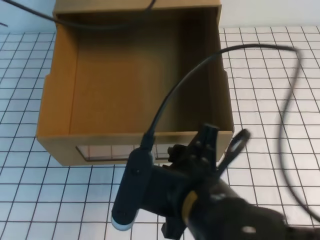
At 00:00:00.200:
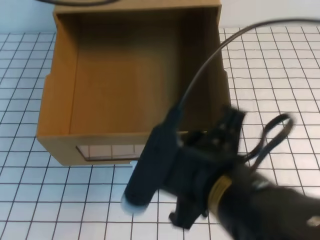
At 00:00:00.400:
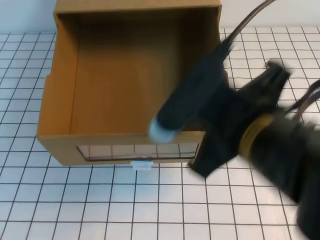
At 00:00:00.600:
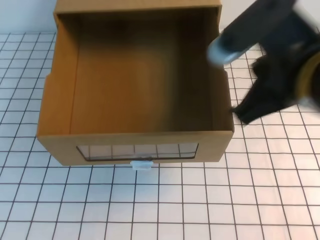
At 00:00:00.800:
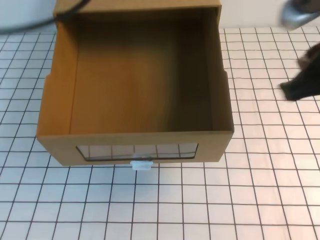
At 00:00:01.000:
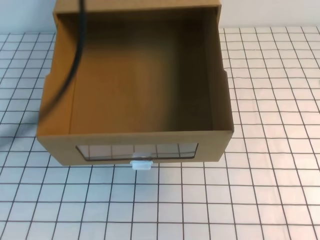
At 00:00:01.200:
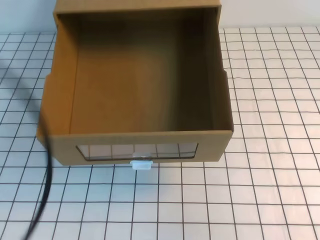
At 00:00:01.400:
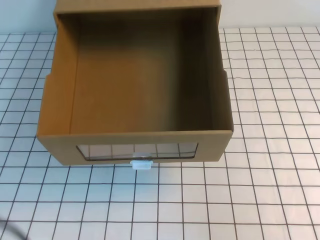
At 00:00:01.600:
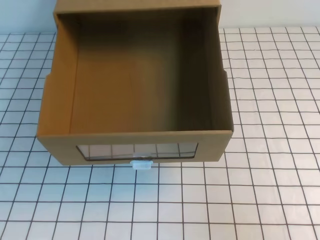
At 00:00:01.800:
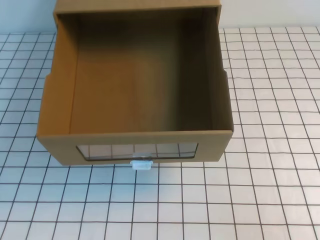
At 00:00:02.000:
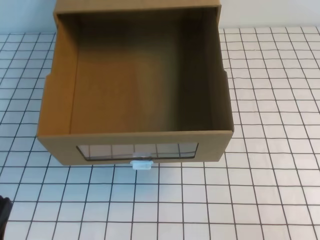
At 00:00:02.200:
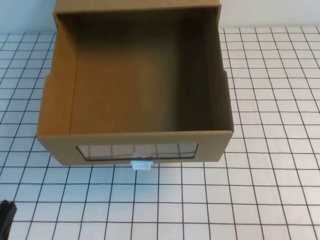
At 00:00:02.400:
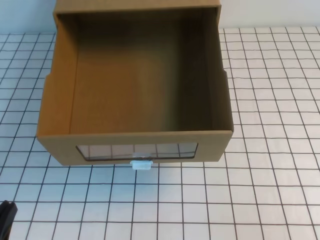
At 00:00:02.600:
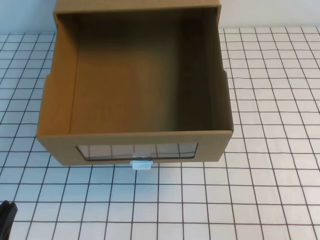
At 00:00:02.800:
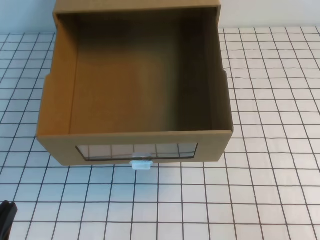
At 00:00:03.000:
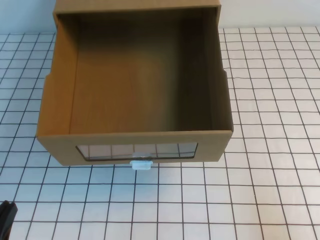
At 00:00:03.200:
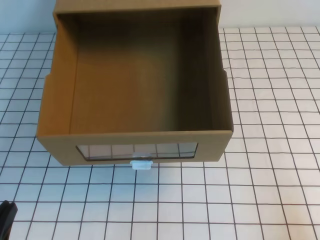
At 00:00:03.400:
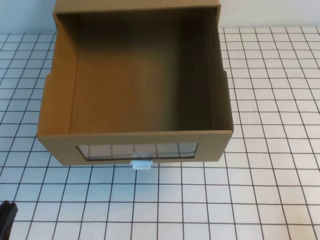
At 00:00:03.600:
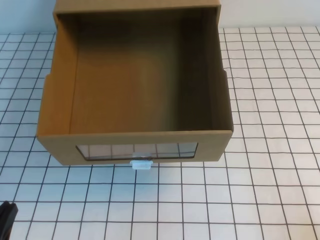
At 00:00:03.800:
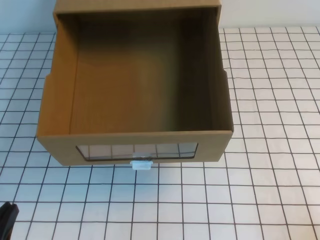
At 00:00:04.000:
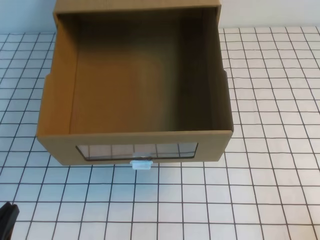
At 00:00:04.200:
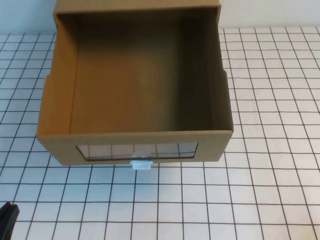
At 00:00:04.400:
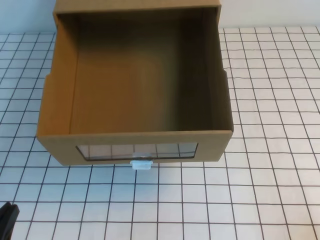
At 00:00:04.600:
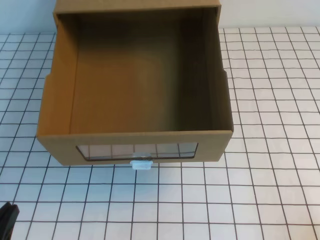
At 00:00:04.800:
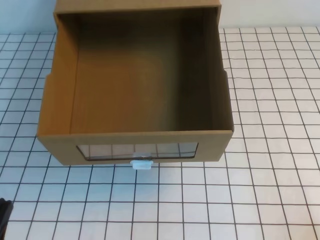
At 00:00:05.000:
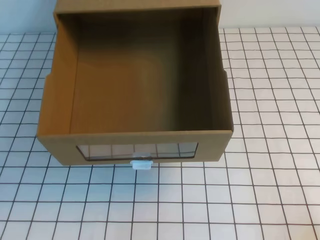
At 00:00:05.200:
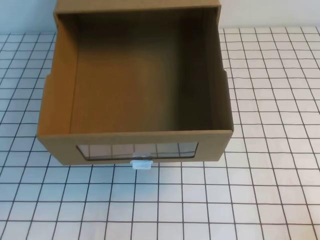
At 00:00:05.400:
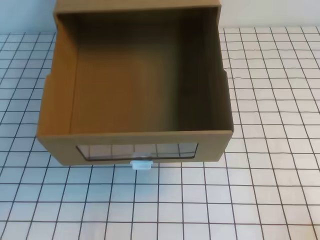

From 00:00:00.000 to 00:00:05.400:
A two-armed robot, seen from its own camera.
Task of the whole recording: open the shoebox on the white tablecloth.
Step, from 00:00:00.000 to 00:00:05.400: Open the shoe box.
From 00:00:00.000 to 00:00:01.400: The left gripper moves backward, some 30 cm. Meanwhile the right gripper goes approximately 25 cm to the right, and closes its fingers.
From 00:00:01.400 to 00:00:02.800: The left gripper is displaced downward by about 20 cm.

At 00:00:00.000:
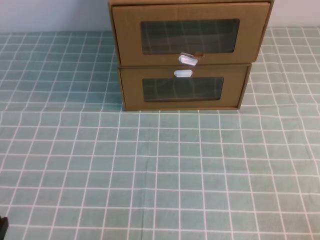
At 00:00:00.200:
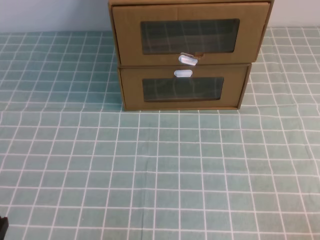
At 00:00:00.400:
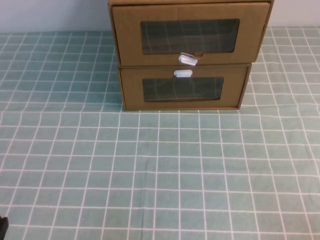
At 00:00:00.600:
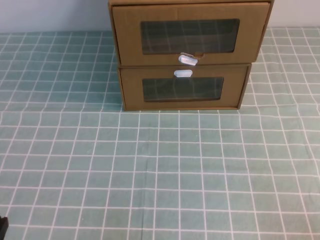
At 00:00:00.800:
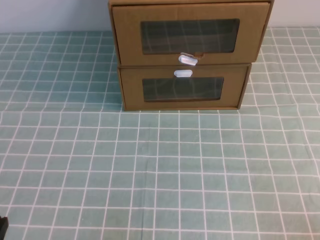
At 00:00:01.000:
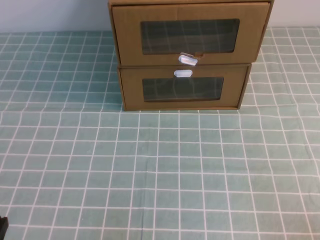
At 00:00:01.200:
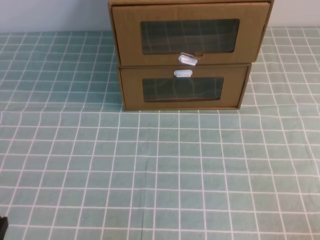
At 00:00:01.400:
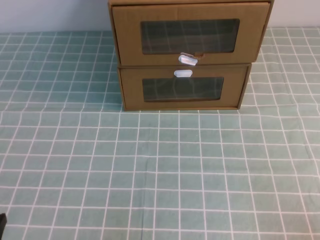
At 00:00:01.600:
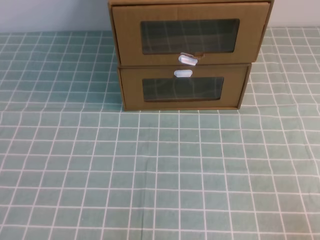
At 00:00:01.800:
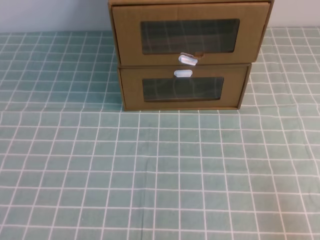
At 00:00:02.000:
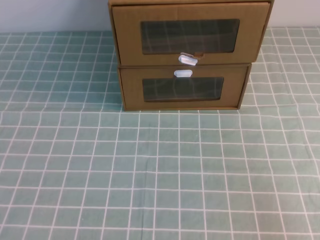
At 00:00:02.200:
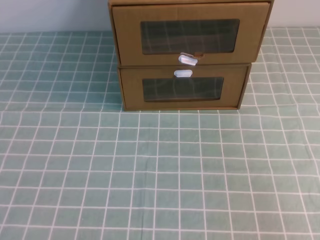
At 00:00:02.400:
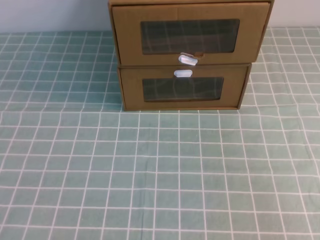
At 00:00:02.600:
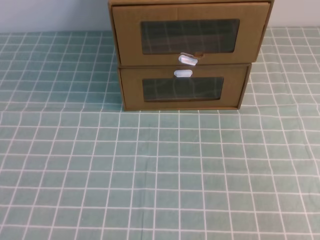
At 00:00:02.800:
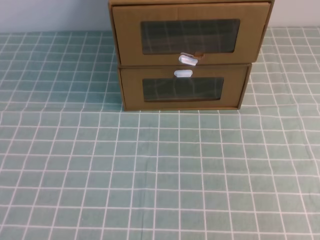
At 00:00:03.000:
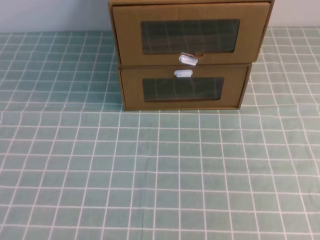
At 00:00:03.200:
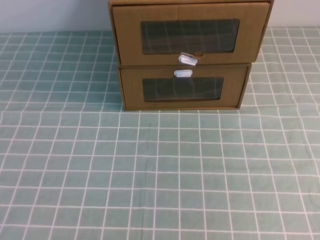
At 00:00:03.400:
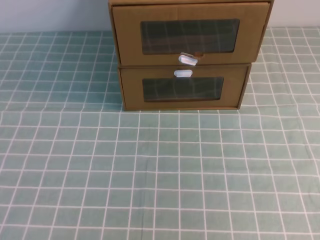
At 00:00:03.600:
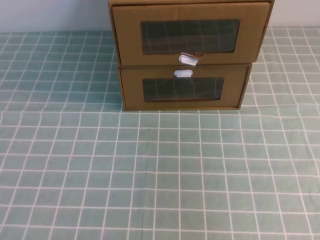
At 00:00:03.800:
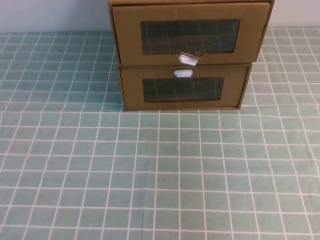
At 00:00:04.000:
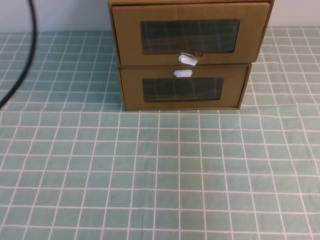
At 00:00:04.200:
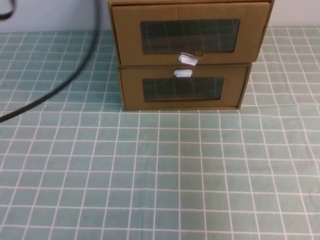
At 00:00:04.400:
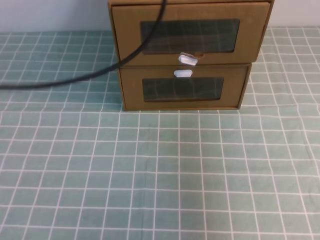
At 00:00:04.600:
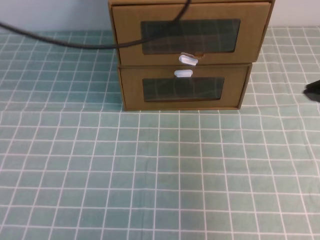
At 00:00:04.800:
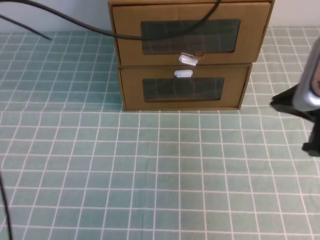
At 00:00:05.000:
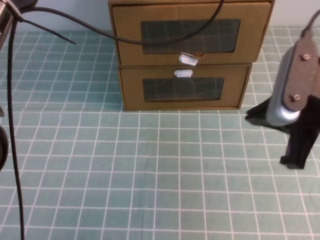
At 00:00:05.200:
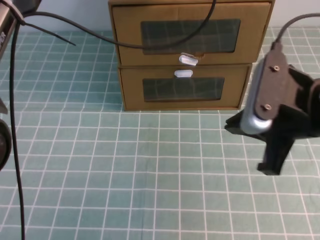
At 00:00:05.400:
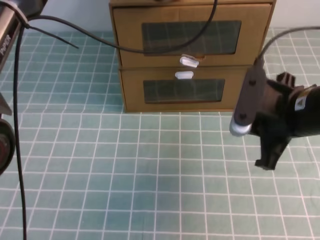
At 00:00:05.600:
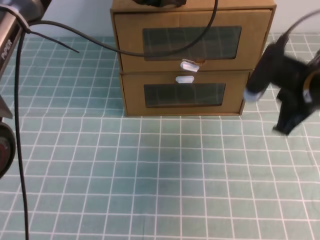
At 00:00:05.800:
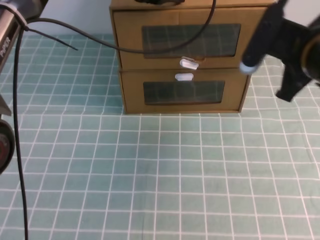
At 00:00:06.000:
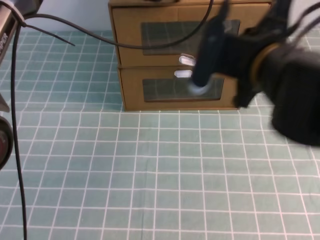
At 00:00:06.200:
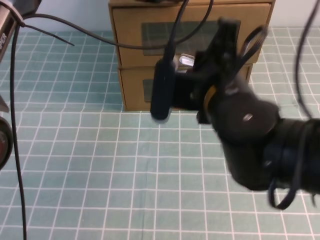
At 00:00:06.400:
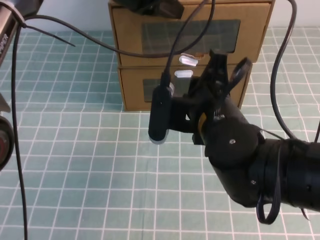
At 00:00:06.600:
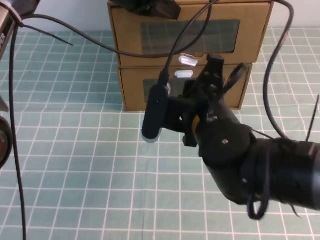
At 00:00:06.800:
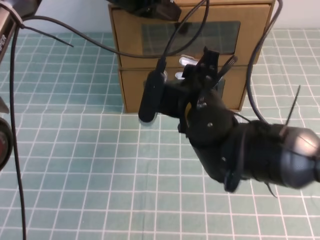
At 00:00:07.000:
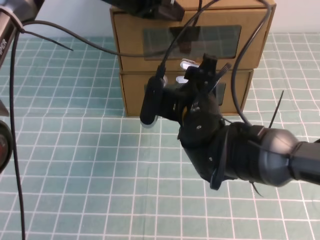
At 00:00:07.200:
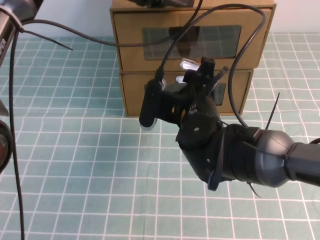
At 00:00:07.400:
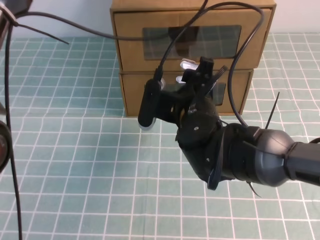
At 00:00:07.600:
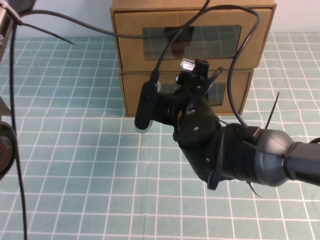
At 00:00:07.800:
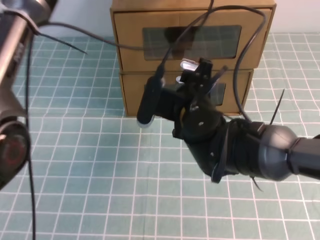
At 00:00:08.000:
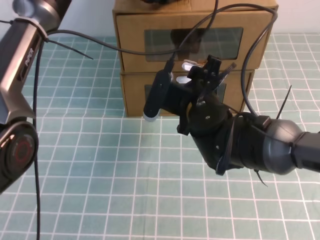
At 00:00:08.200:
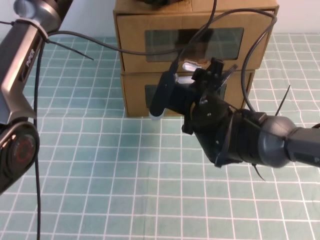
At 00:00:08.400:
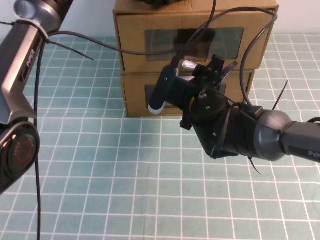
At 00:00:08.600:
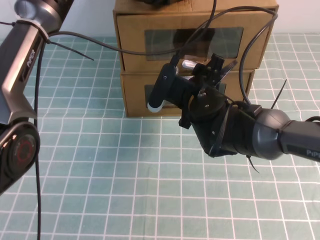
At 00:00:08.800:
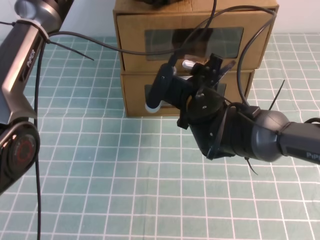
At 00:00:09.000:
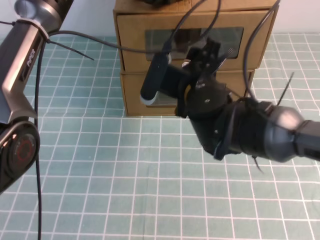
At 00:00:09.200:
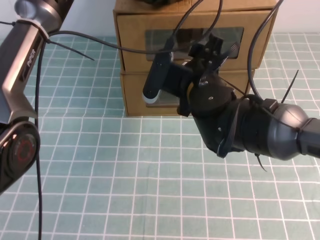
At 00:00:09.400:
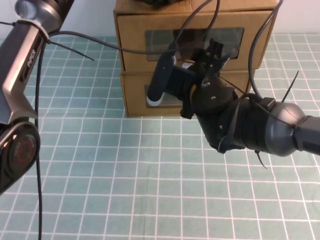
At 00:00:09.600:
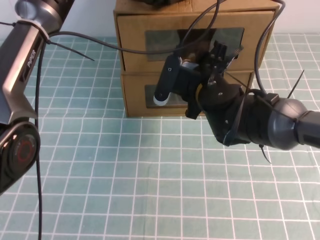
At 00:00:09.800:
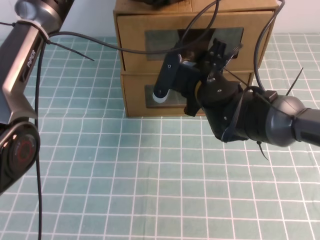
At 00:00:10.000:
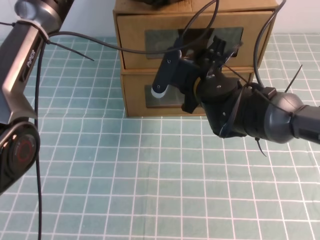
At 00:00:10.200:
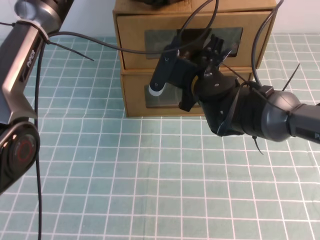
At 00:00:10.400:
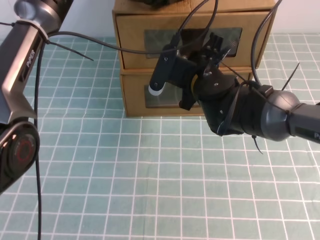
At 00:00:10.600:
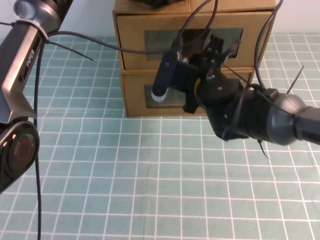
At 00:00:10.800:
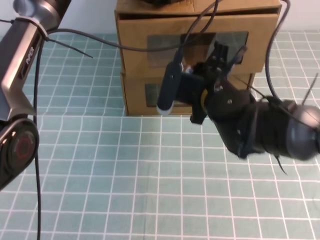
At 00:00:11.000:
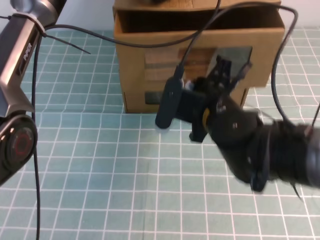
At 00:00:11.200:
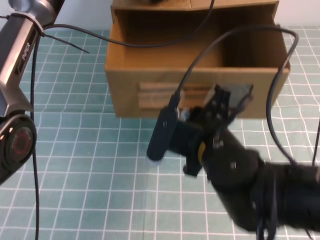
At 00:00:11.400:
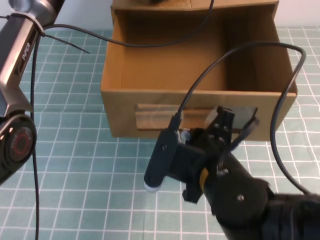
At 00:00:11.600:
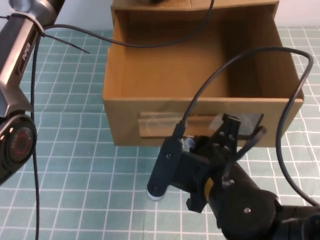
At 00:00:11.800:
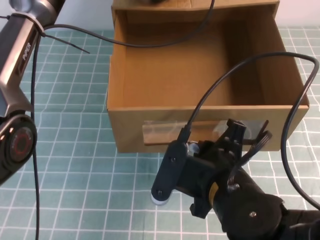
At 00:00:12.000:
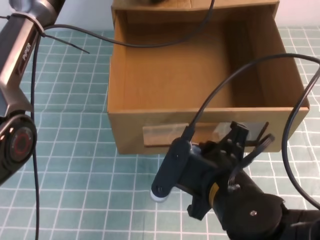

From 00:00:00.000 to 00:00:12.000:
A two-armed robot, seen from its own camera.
Task of the whole recording: open the shoebox on the cyan tablecloth.
From 00:00:03.000 to 00:00:04.400: The left gripper moves forward and to the right, about 35 cm; the right gripper travels forward by some 25 cm.
From 00:00:04.400 to 00:00:06.000: The left gripper heads forward, downward and to the right, covering some 20 cm, while the right gripper goes some 15 cm to the left and forward.
From 00:00:06.000 to 00:00:07.600: The right gripper is displaced downward and to the left by roughly 15 cm, and opens its fingers.
From 00:00:07.600 to 00:00:09.000: The left gripper travels downward by about 5 cm.
From 00:00:09.000 to 00:00:10.400: The right gripper closes.
From 00:00:10.400 to 00:00:12.000: The right gripper shifts roughly 20 cm backward.

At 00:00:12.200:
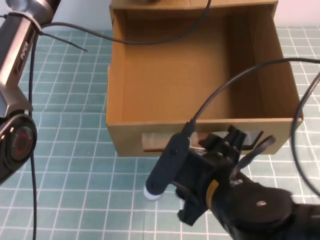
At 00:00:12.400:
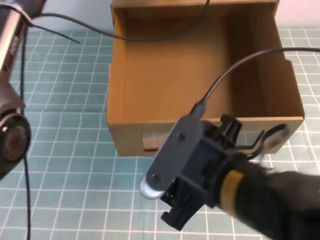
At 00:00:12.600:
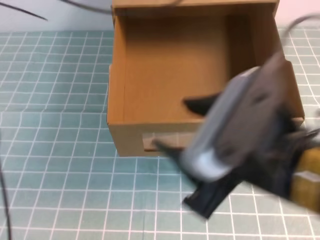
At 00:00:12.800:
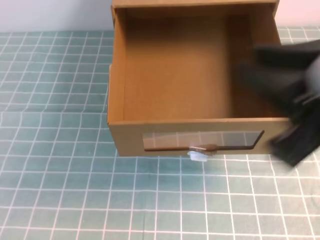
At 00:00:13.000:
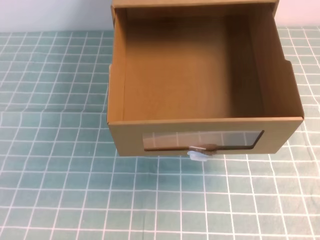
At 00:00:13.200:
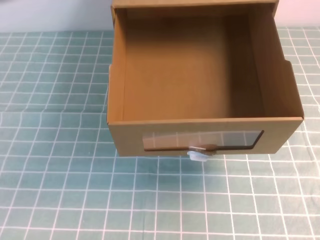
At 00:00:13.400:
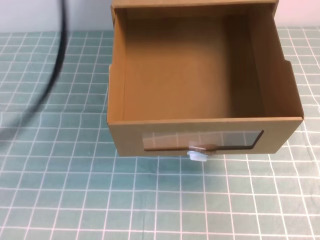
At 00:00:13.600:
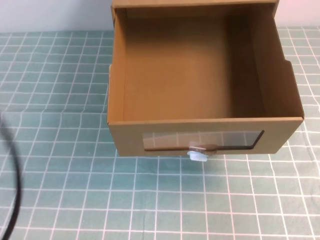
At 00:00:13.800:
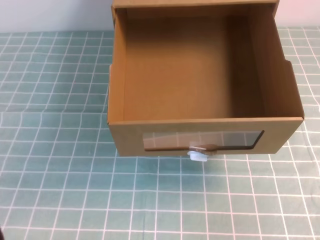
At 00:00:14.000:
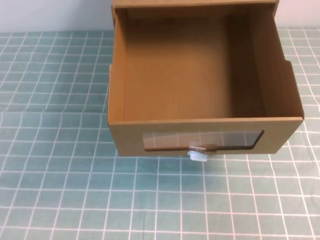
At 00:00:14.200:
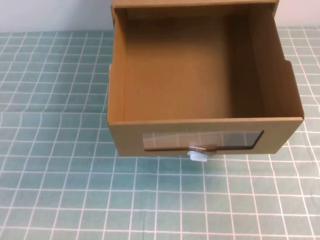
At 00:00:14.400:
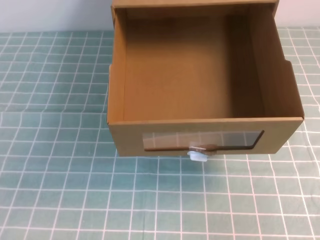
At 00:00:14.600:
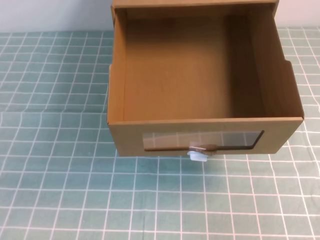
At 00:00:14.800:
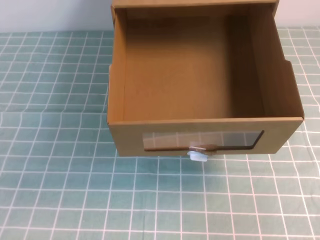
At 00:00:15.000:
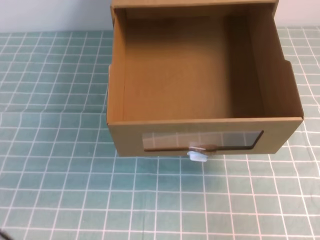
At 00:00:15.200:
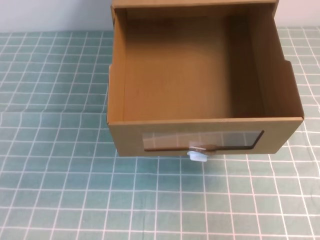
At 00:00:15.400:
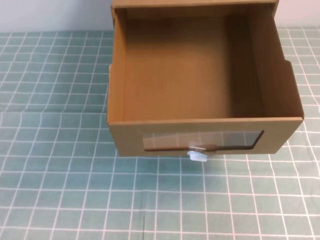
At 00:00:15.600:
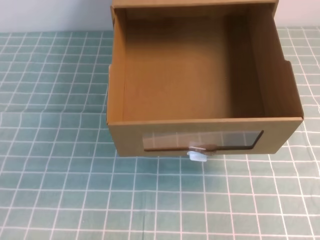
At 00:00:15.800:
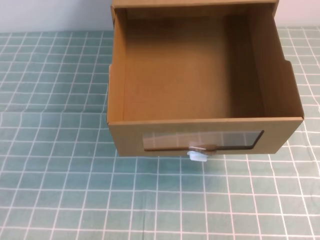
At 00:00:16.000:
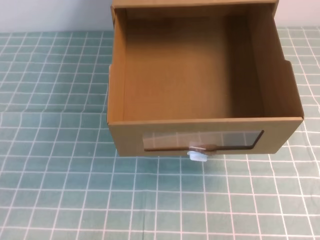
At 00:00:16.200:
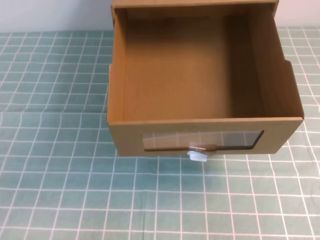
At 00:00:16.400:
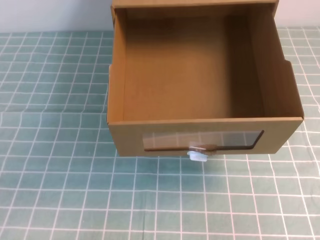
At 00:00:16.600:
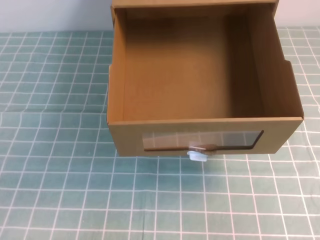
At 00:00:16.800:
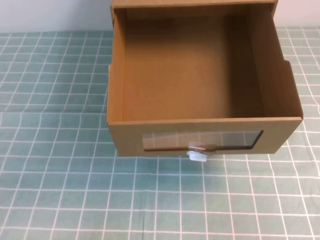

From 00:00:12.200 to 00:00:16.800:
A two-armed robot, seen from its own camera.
Task of the whole recording: open the shoebox on the cyan tablecloth.
From 00:00:12.200 to 00:00:13.800: The left gripper is displaced backward and to the left by about 40 cm, while the right gripper travels to the right by roughly 25 cm, and closes up.
